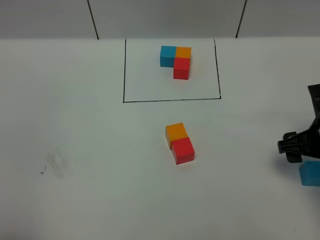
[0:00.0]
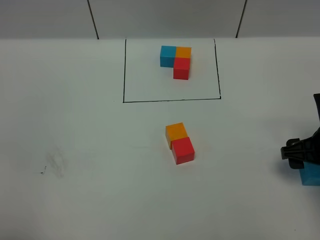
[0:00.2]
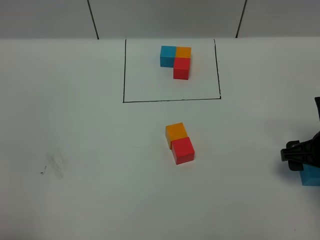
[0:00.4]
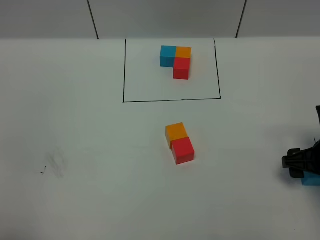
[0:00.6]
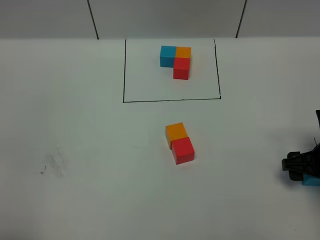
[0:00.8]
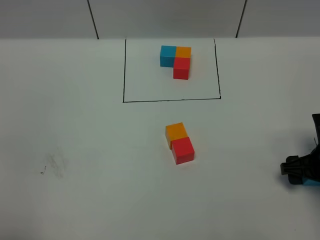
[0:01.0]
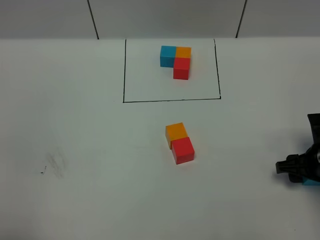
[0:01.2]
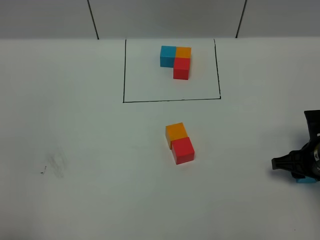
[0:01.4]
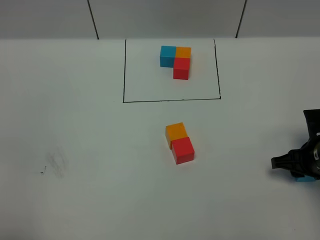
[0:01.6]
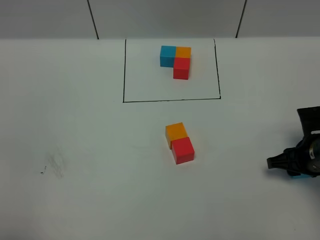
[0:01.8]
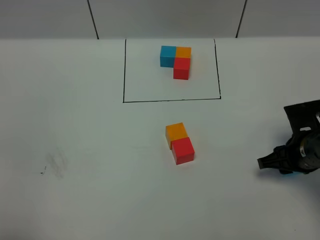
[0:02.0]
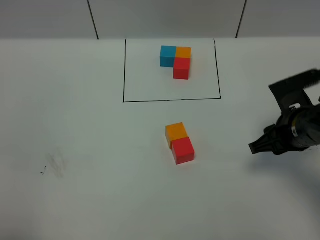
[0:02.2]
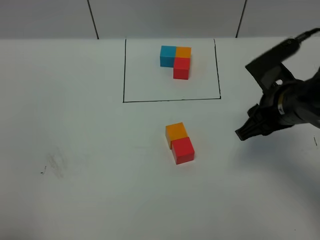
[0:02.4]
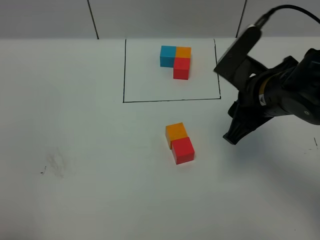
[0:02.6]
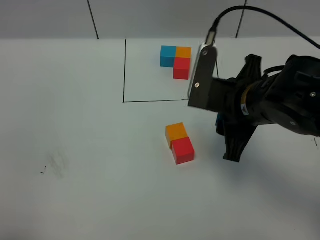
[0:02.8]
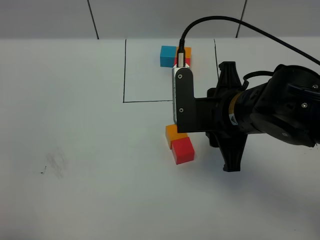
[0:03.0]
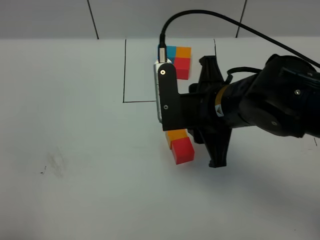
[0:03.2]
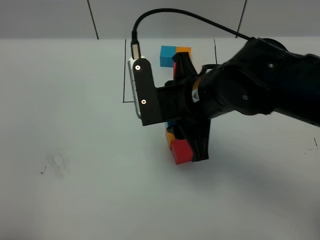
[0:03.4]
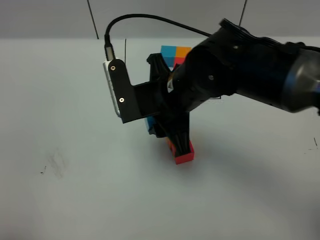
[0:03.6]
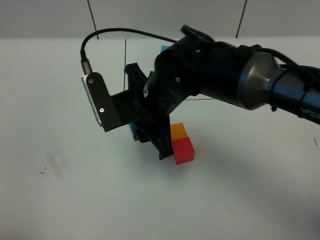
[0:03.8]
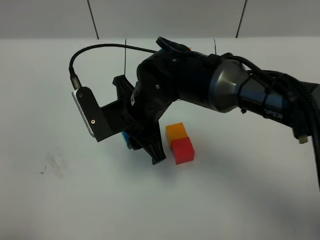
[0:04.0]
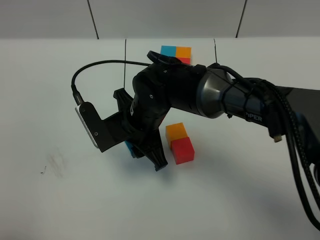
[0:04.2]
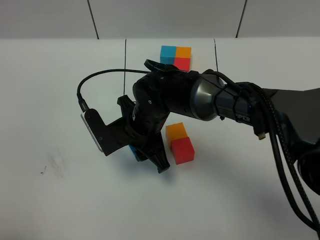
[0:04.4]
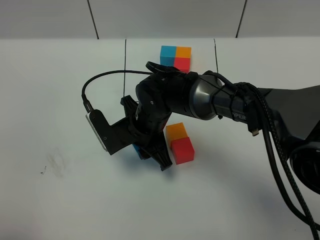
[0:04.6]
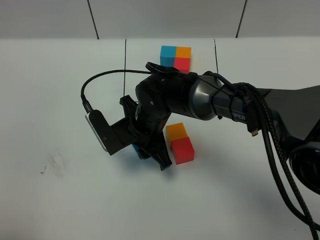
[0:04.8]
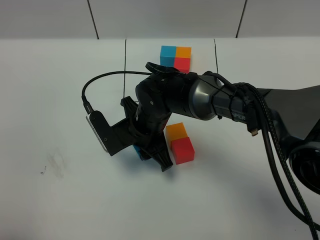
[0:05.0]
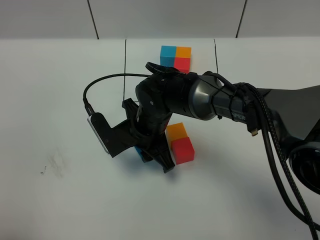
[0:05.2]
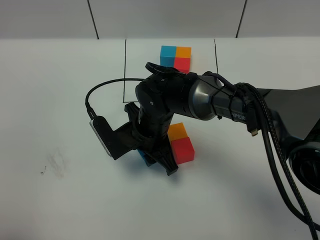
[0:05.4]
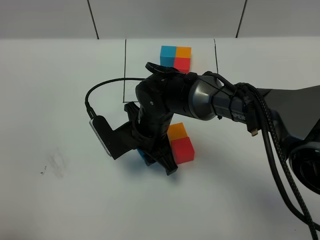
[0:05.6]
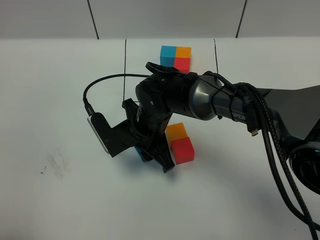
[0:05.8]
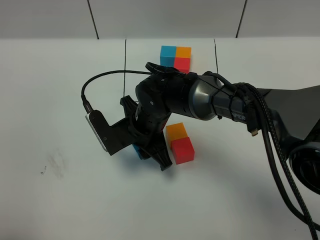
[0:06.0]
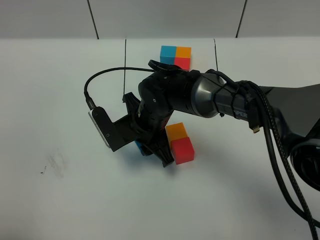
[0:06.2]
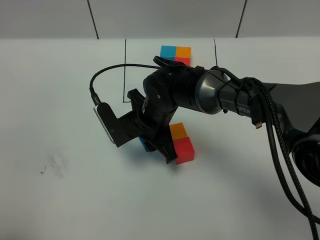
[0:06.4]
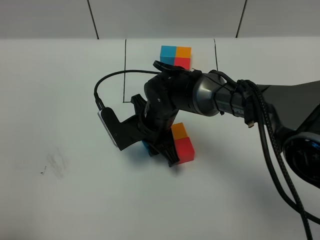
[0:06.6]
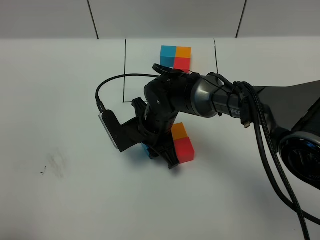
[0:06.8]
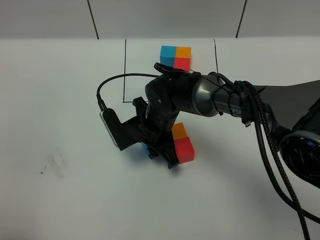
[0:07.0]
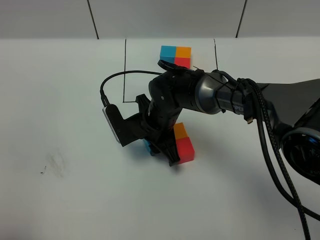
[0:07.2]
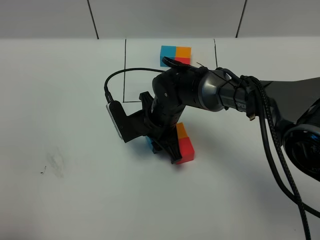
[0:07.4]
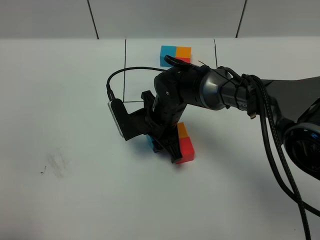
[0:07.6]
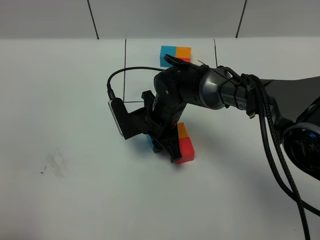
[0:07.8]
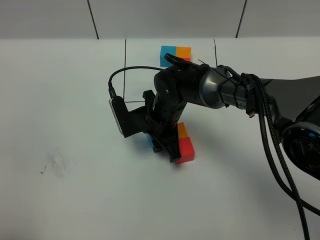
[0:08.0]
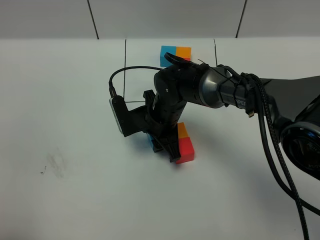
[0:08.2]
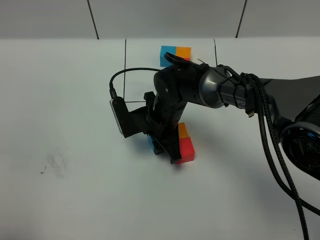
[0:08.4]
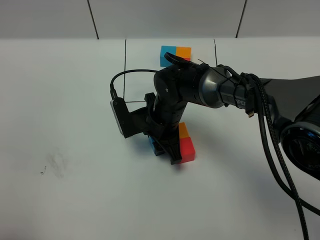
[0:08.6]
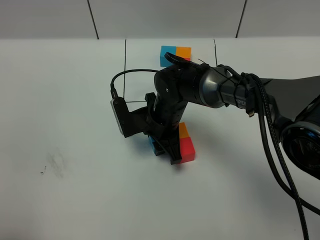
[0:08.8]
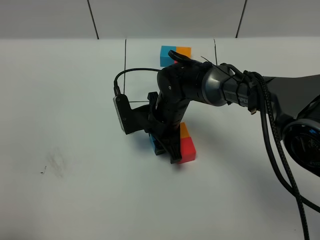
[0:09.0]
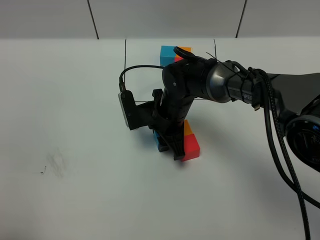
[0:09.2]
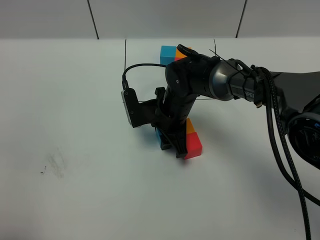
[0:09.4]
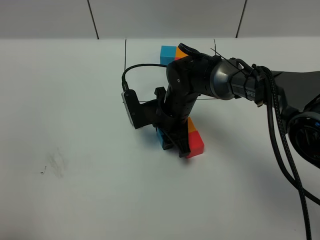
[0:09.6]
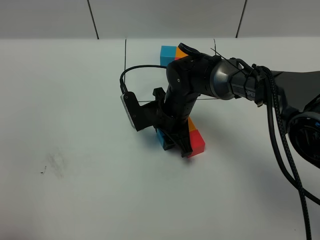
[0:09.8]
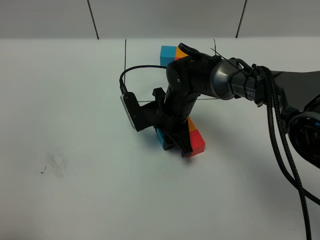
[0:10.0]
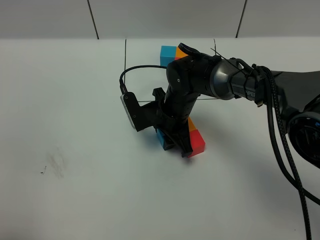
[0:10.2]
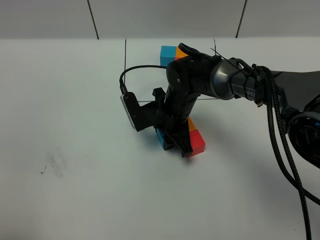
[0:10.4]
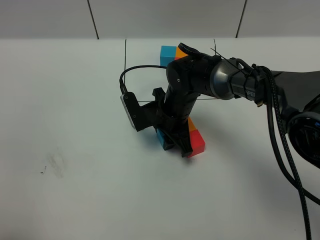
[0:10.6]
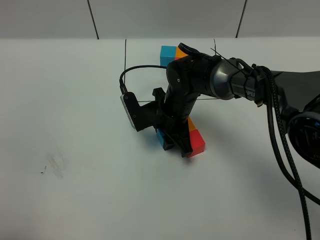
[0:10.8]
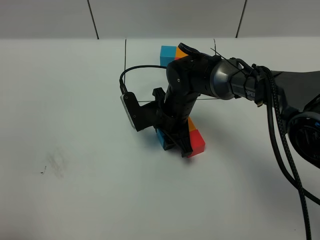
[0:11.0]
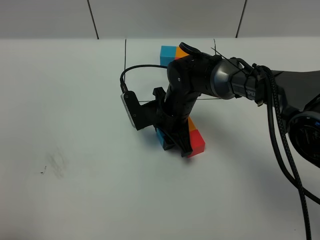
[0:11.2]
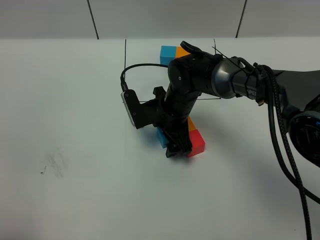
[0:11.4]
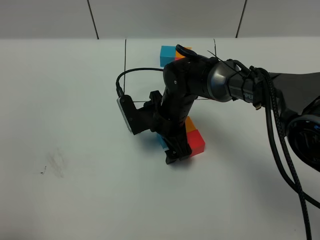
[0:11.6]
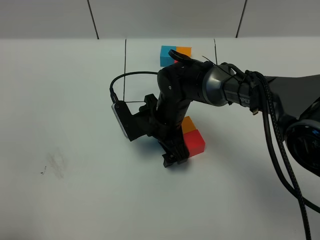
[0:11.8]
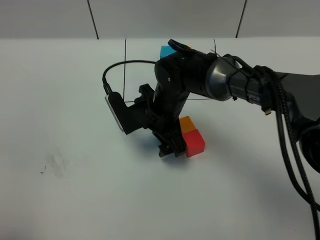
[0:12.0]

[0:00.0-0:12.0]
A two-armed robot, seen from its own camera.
Task of the whole recording: According to the building block template in front, assemble the scattered blocks together.
0:00.0 to 0:01.6: The right gripper shifts approximately 5 cm downward, and closes.
0:01.6 to 0:03.0: The right gripper shifts approximately 25 cm to the left and upward.
0:03.0 to 0:04.4: The right gripper goes about 20 cm to the left, downward and forward.
0:04.4 to 0:06.0: The grippers make only small movements.
0:06.0 to 0:07.6: The right gripper ends up approximately 5 cm from where it was.
0:07.6 to 0:10.4: The grippers move only a little.
0:10.4 to 0:12.0: The right gripper goes approximately 5 cm upward, and opens its fingers.

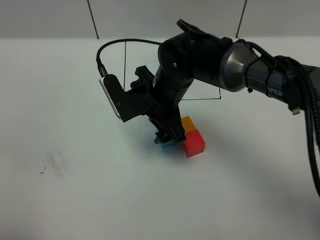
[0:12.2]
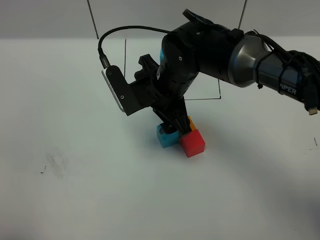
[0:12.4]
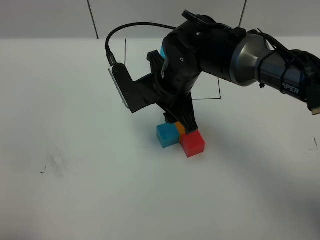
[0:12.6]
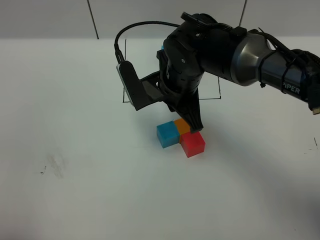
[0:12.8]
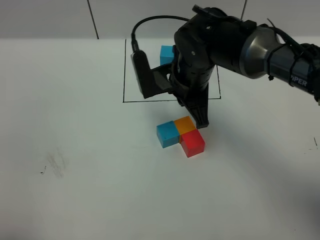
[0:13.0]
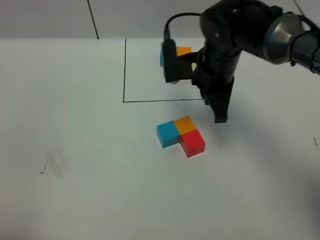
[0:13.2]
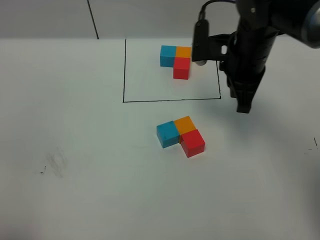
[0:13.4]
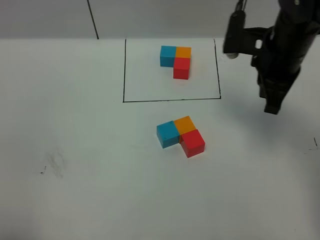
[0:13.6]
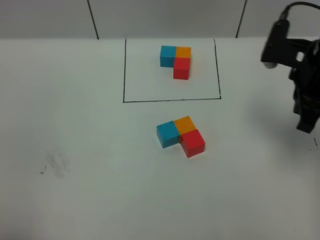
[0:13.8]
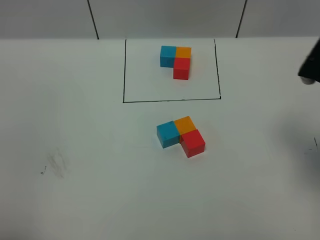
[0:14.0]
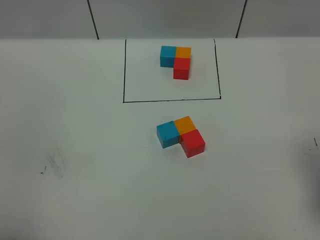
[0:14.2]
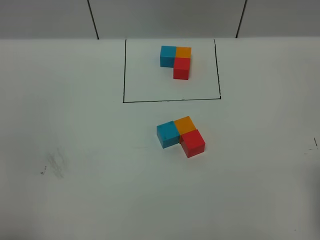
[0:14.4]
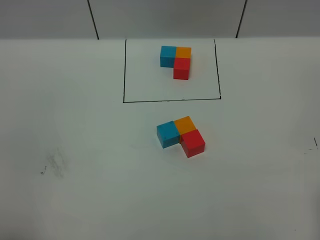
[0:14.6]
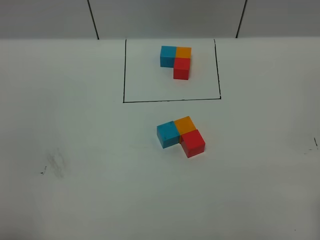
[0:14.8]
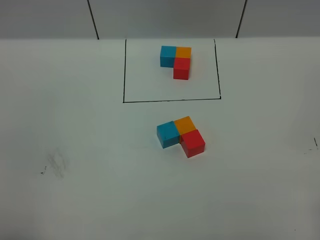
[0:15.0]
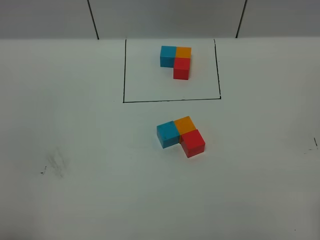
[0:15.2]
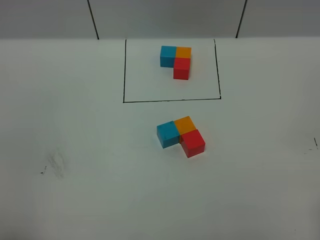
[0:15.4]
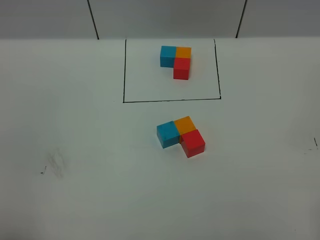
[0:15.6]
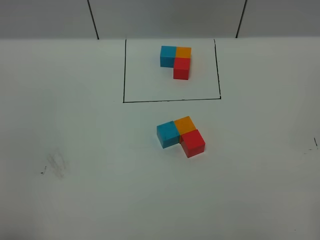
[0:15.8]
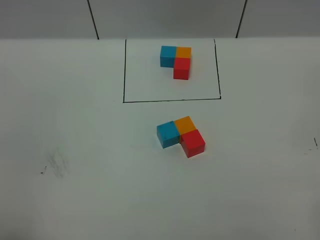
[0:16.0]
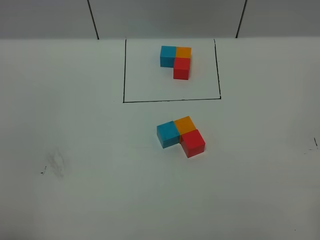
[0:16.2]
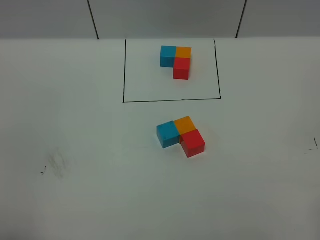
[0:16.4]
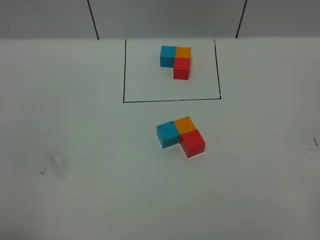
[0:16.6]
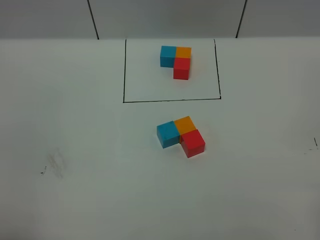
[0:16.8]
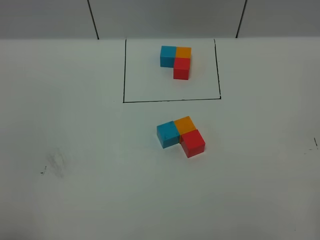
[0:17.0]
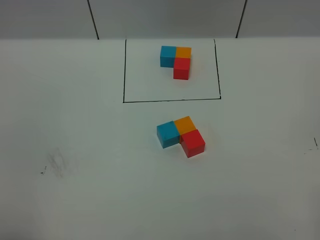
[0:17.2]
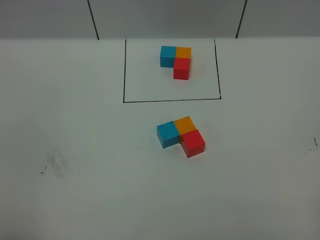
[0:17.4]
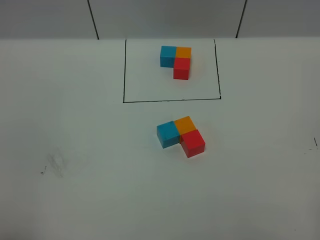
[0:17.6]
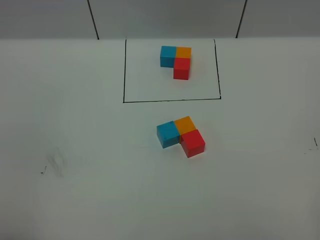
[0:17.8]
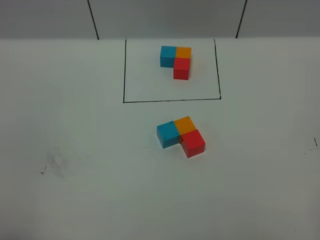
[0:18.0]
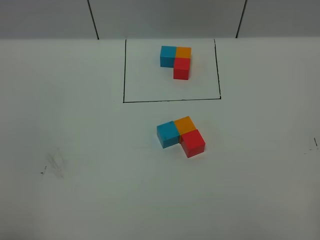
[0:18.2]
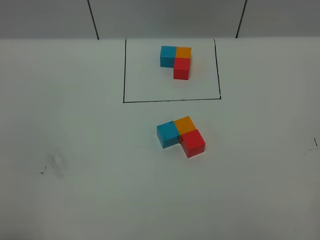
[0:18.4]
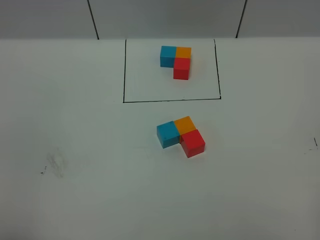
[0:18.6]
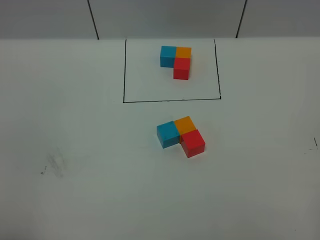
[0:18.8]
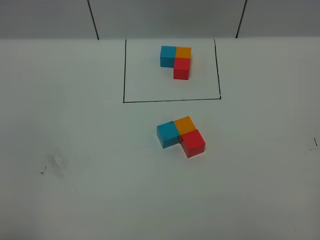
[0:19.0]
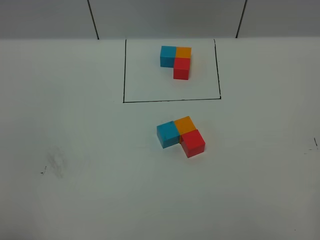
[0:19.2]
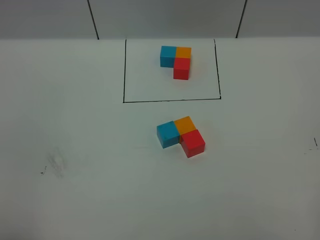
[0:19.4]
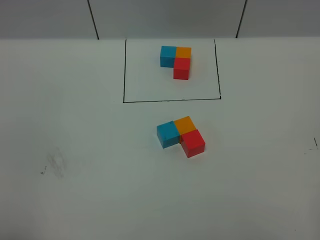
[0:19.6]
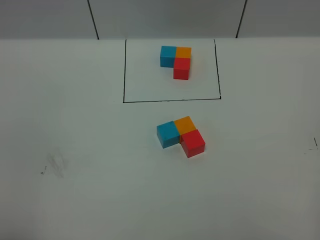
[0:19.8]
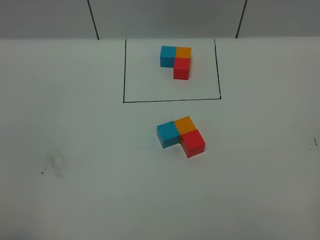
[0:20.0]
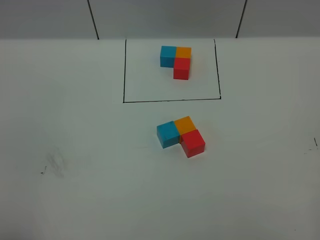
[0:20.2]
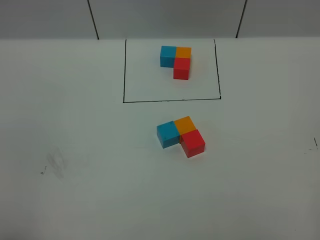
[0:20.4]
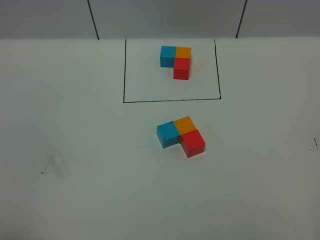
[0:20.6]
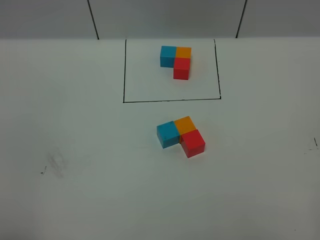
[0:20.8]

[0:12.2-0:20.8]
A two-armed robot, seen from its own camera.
Task of the whole recording: According to the building block template in front, assemble the scattered blocks together.
0:12.2 to 0:13.6: The right gripper travels to the right by roughly 20 cm, and closes its fingers.
0:13.6 to 0:15.0: The right gripper heads backward, covering roughly 30 cm.
0:18.0 to 0:20.8: Both grippers stay put.
